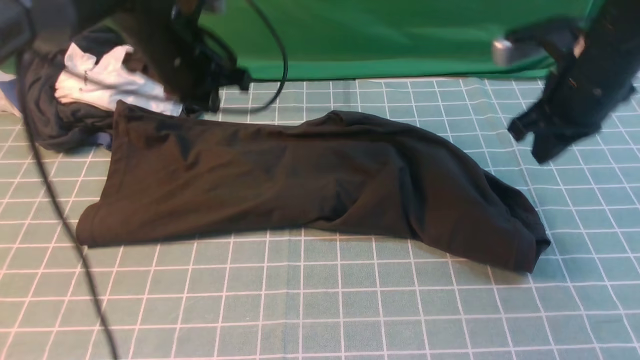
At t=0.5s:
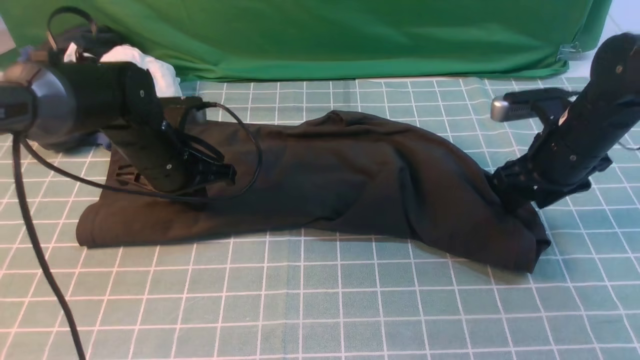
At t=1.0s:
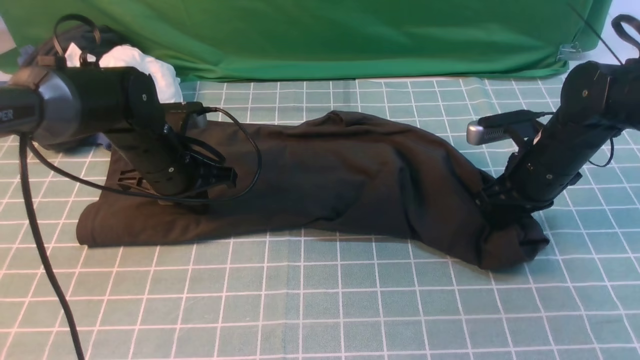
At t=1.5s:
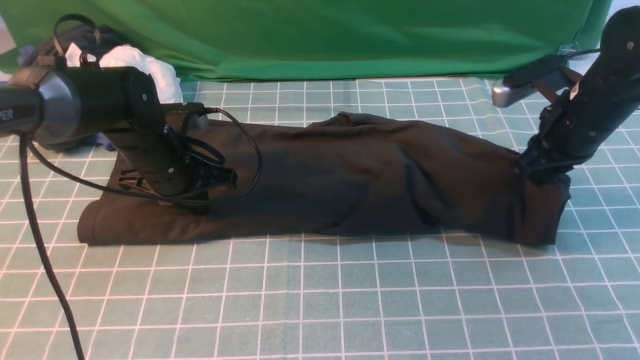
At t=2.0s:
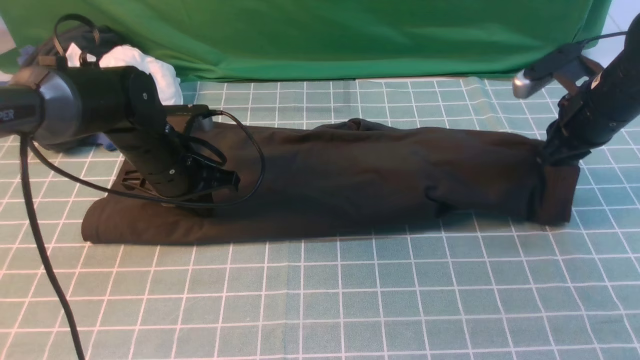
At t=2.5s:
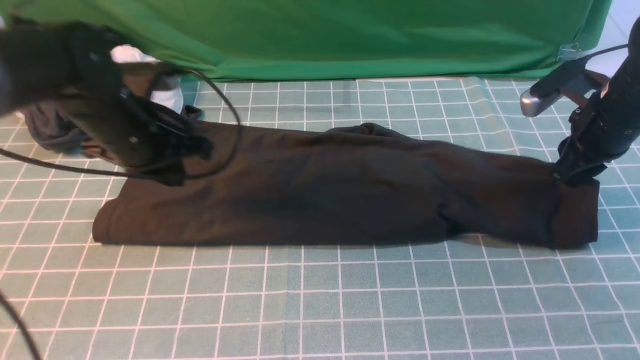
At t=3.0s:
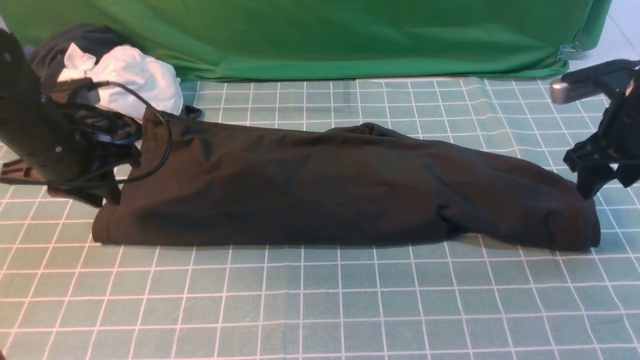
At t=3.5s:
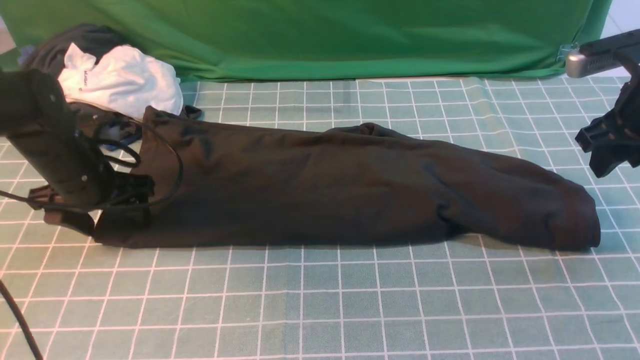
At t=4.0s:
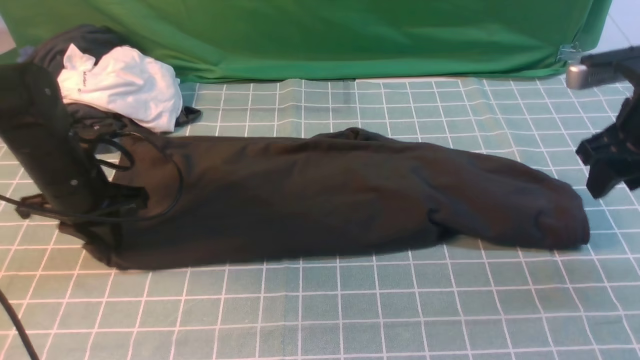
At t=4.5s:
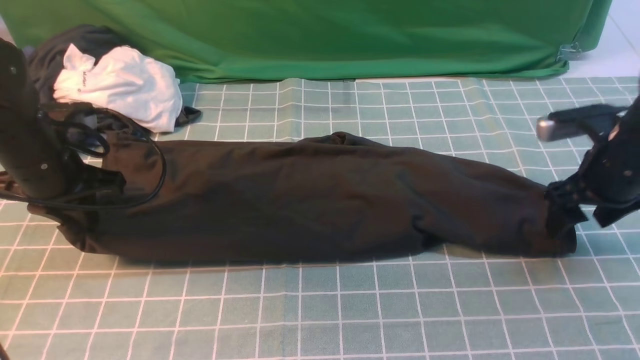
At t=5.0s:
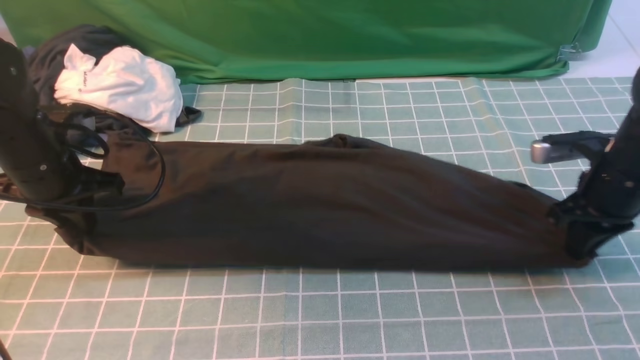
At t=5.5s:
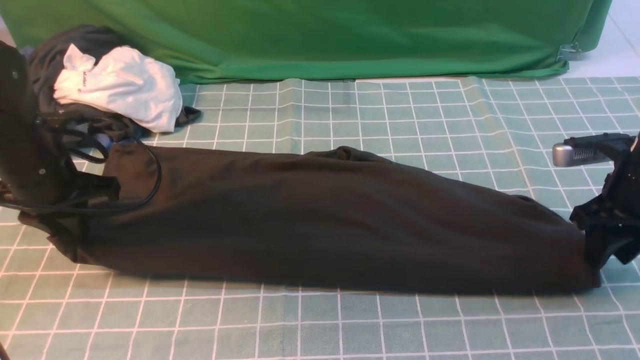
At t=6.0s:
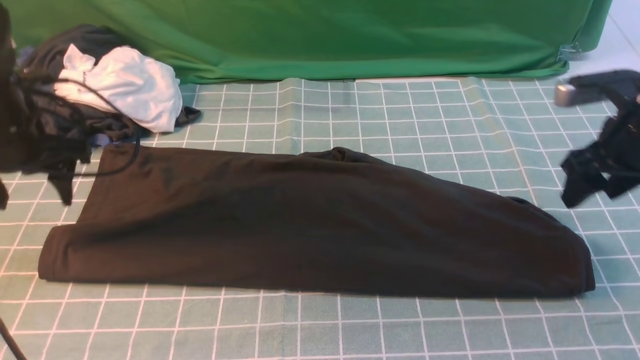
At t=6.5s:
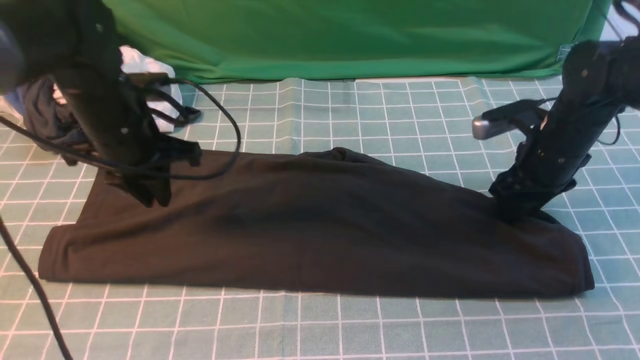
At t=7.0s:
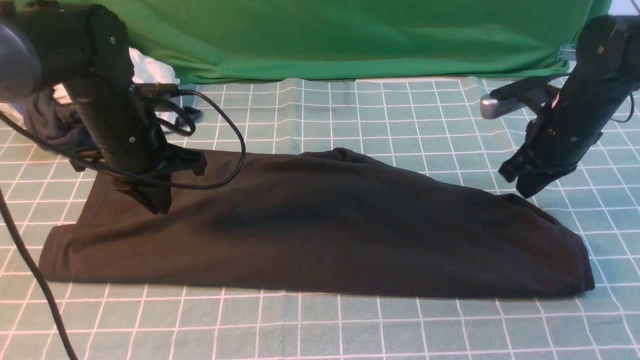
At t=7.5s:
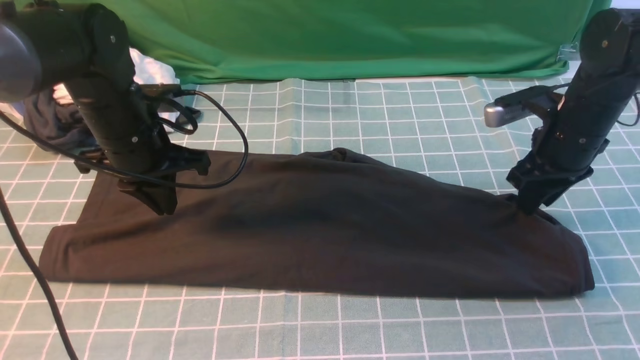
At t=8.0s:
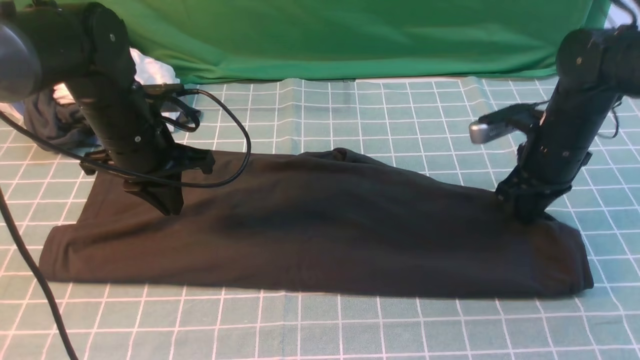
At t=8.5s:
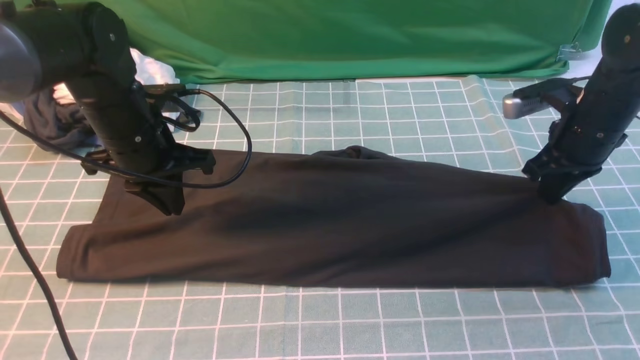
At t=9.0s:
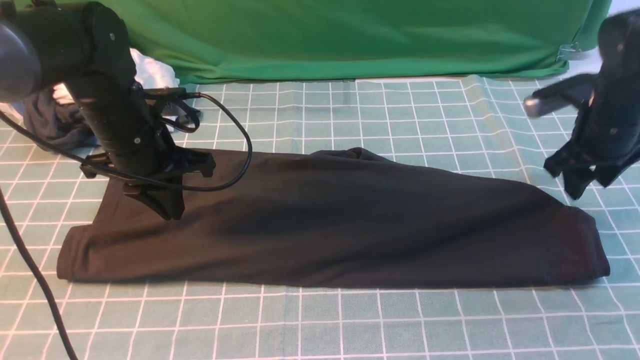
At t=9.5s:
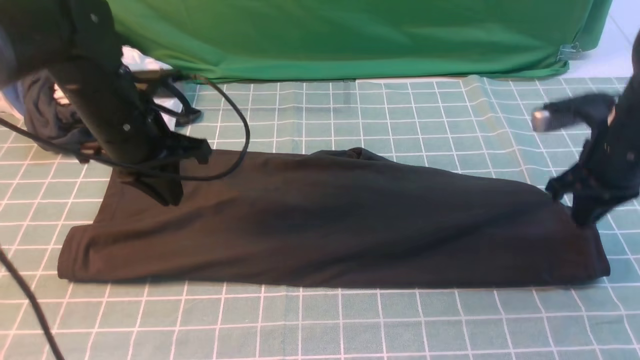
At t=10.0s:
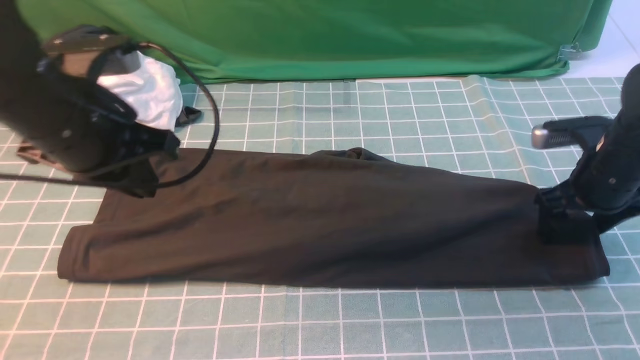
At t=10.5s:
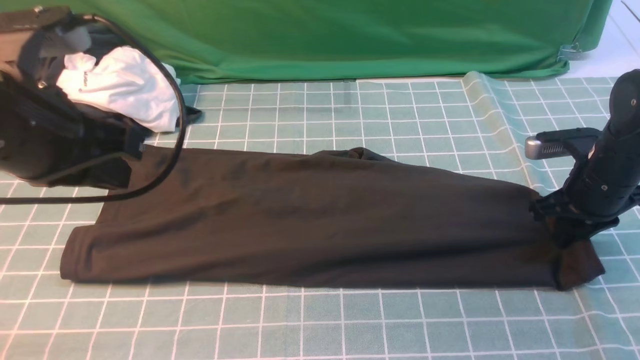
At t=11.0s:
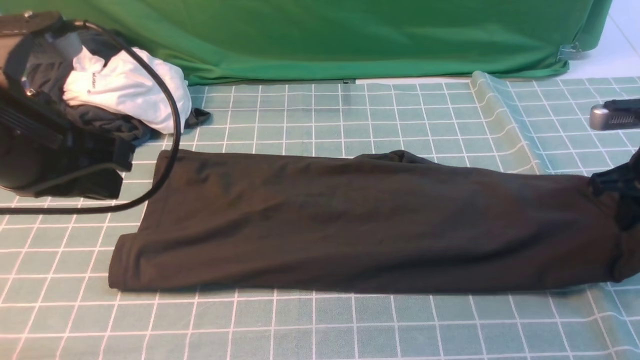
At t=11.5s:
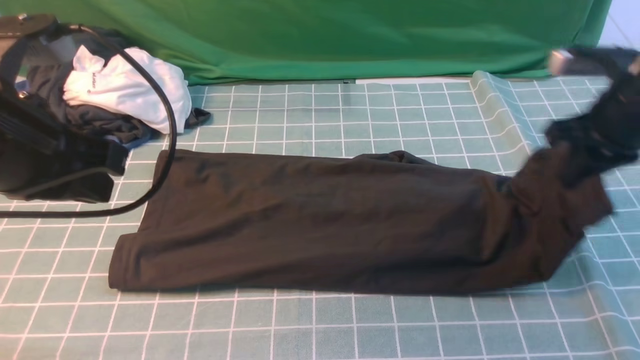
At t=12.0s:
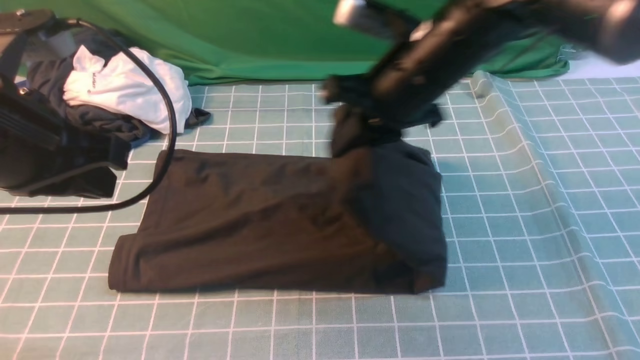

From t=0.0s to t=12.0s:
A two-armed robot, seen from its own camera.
Step, from t=0.0s to t=11.0s: use the right arm to clamp the right edge of the fabric.
From t=0.0s to t=2.0s: The left gripper is displaced downward and backward by about 10 cm; the right gripper goes roughly 10 cm to the right and downward, and opens and closes again.
From t=2.0s to t=4.0s: The right gripper goes about 10 cm backward and upward, and opens. The left gripper travels to the left by approximately 10 cm, and opens, then closes again.
From t=4.0s to t=6.0s: The left gripper shifts approximately 5 cm upward, and opens; the right gripper closes and opens again.
From t=6.0s to t=8.0s: The left gripper goes some 10 cm to the right, and closes. The right gripper goes approximately 5 cm to the left, and closes.
From t=8.0s to t=10.0s: The right gripper travels to the right by approximately 5 cm, and opens its fingers. Meanwhile the left gripper is displaced upward and backward by roughly 10 cm.
From t=10.0s to t=12.0s: The left gripper goes some 10 cm backward, while the right gripper shifts roughly 25 cm to the left and upward, and closes its fingers.

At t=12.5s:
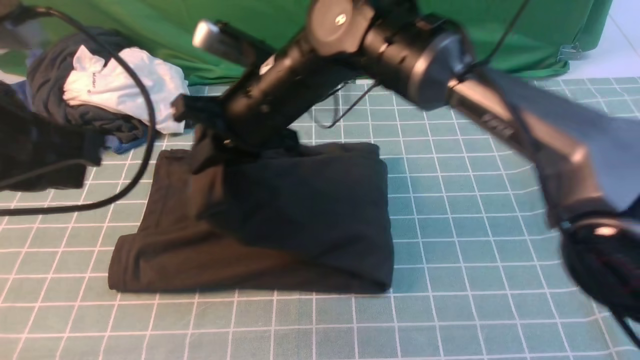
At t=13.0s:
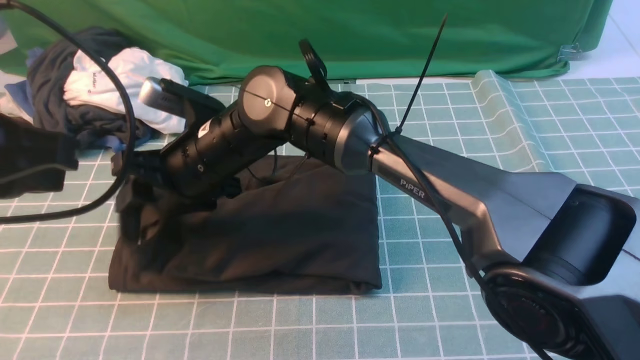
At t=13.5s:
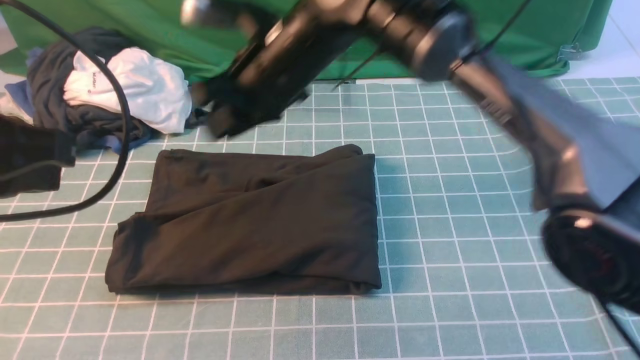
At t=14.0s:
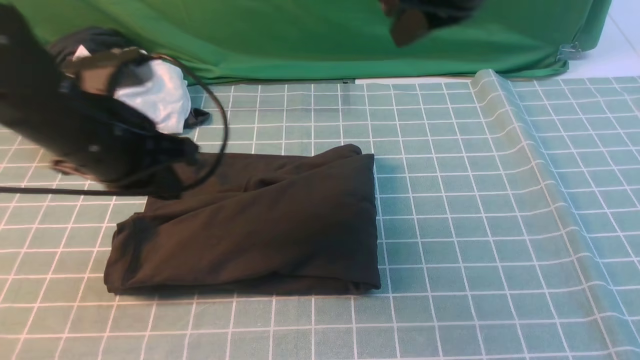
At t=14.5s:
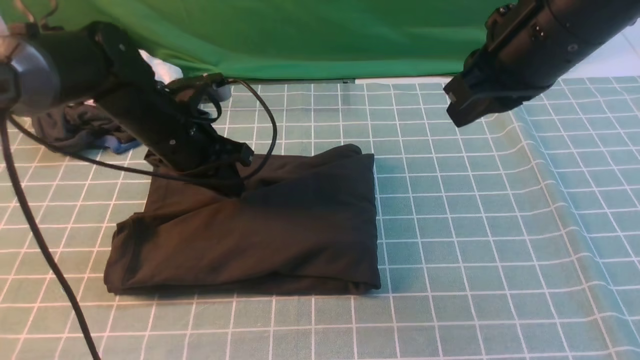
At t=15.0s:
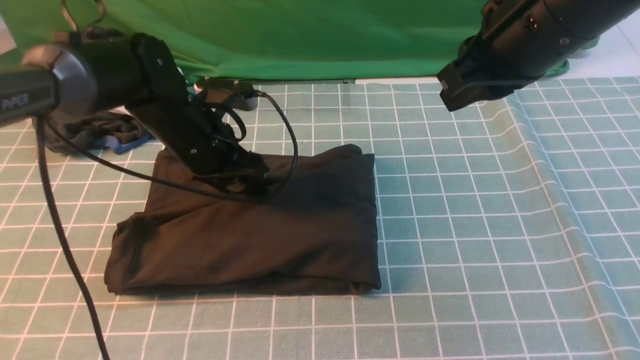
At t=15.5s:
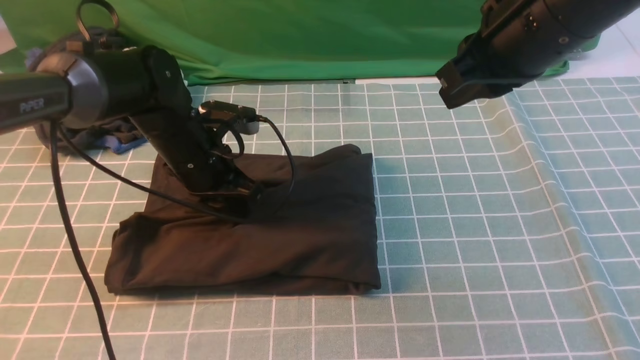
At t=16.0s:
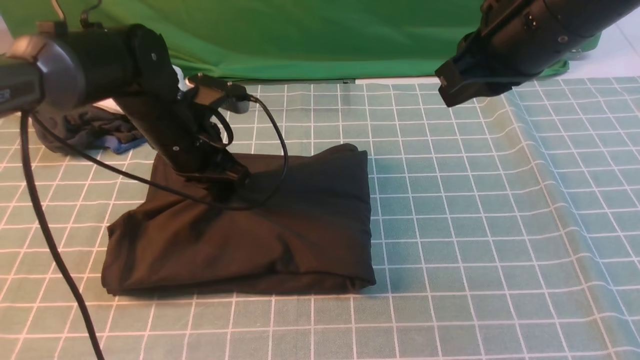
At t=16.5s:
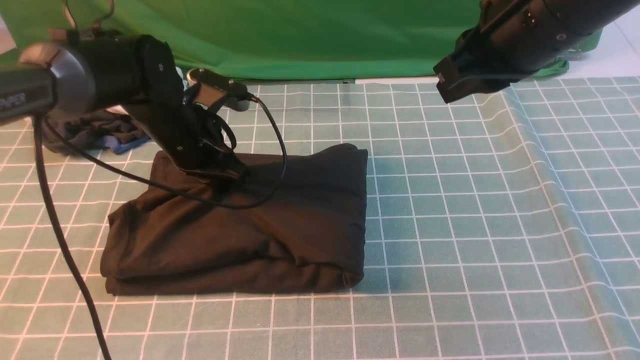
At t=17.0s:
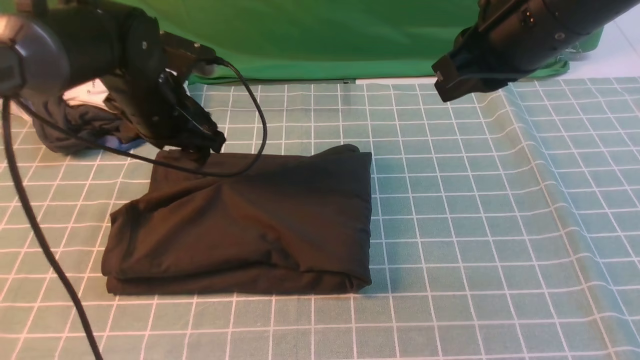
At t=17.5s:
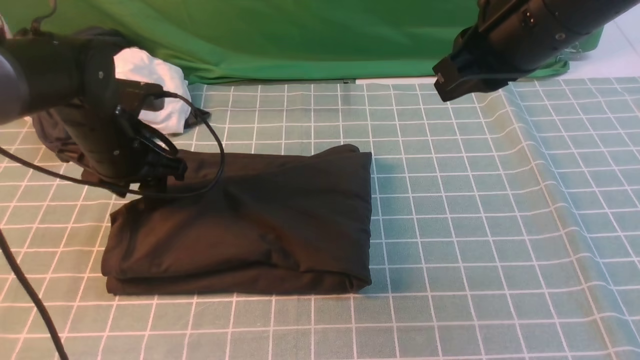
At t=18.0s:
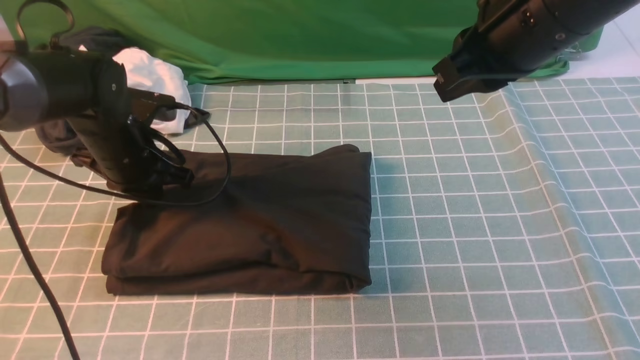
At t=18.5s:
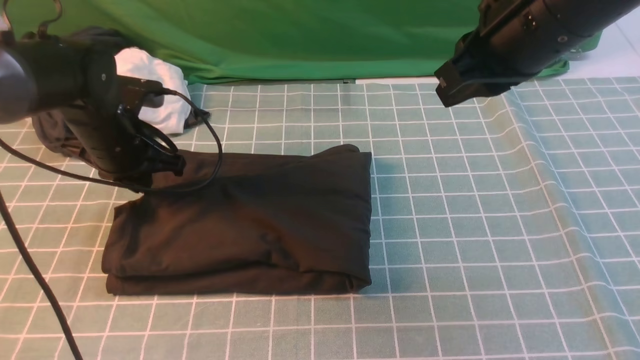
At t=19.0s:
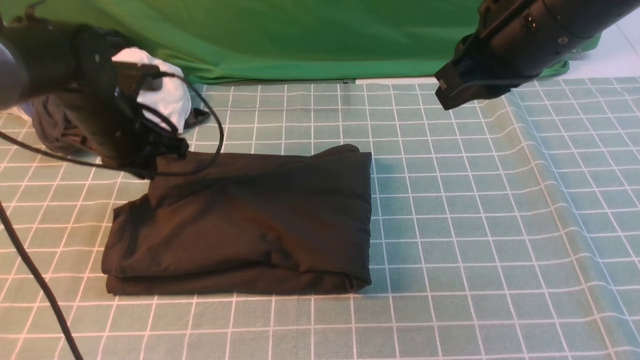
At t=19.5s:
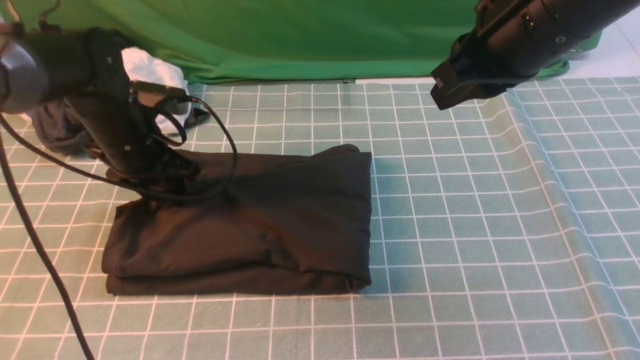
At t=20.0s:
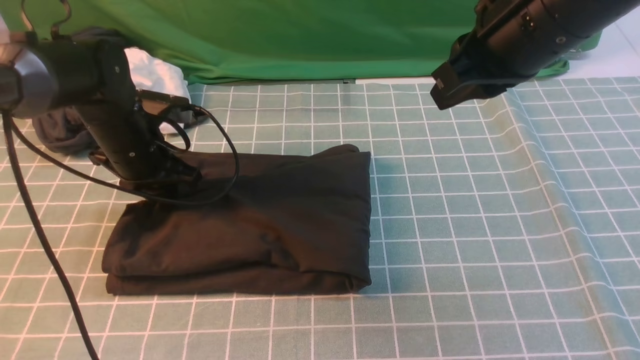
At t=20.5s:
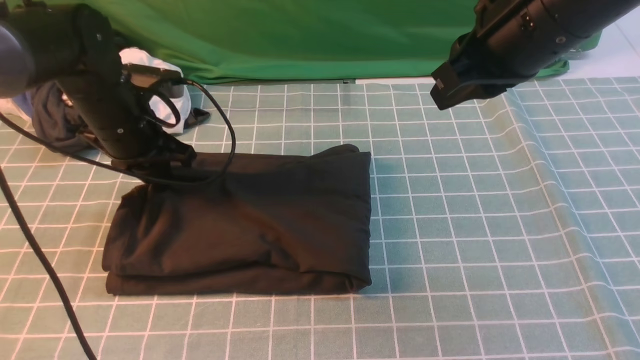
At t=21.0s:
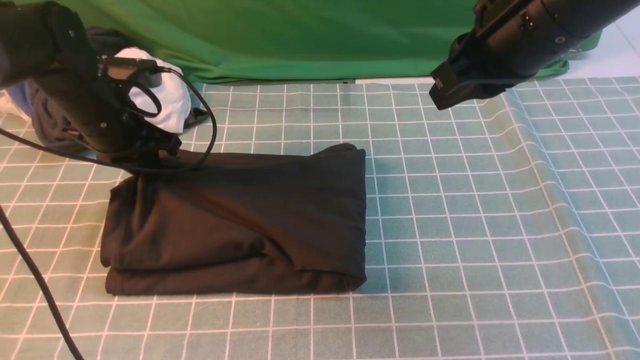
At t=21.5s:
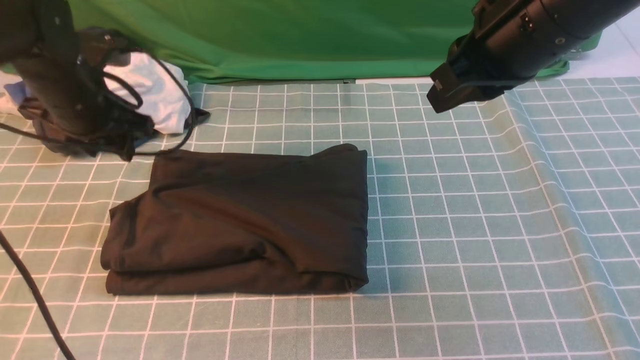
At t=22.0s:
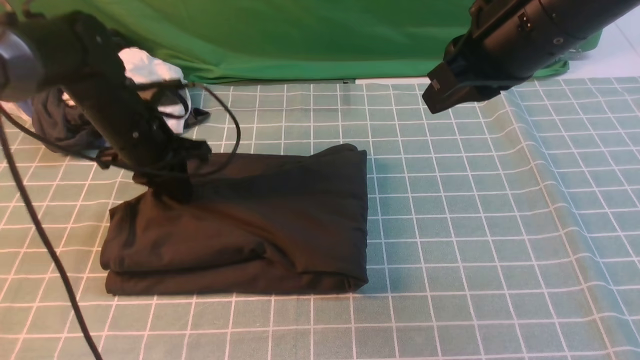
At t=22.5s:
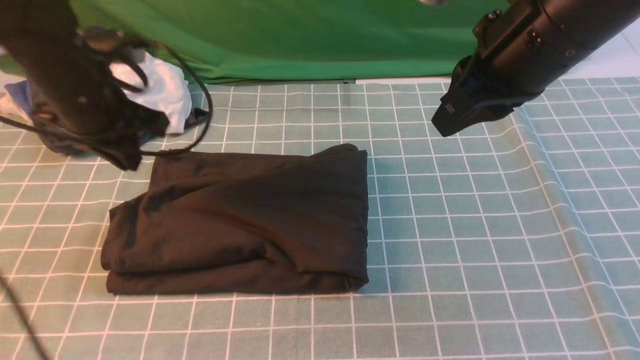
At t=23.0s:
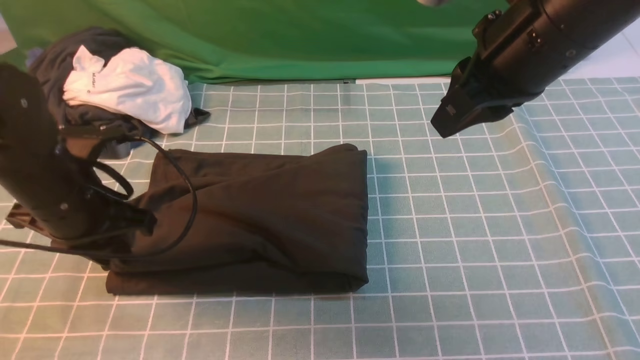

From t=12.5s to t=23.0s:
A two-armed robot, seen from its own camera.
From t=12.5s to t=14.5s: The left gripper moves forward and downward, roughly 25 cm; the right gripper is displaced to the right and upward by approximately 20 cm, and opens, then closes again.
From t=14.5s to t=16.5s: The left gripper opens and closes again.
From t=16.5s to t=19.0s: The left gripper goes some 5 cm to the left, and opens, then closes again.
From t=19.0s to t=21.0s: The grippers make only small movements.
From t=21.0s to t=23.0s: The left gripper shifts approximately 10 cm backward.
